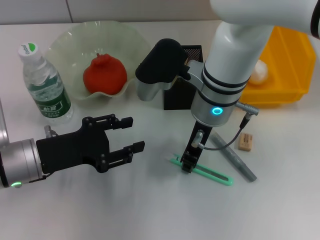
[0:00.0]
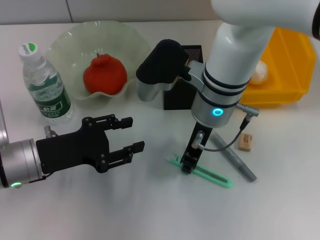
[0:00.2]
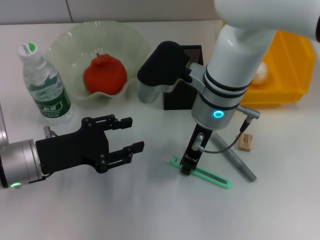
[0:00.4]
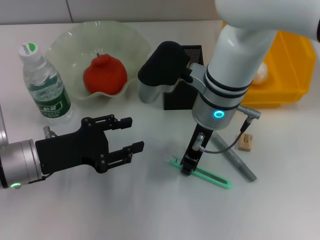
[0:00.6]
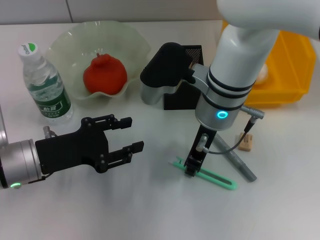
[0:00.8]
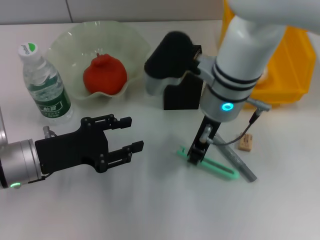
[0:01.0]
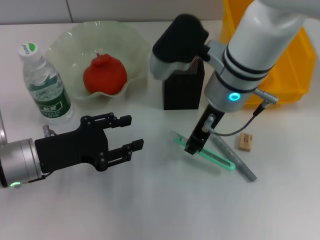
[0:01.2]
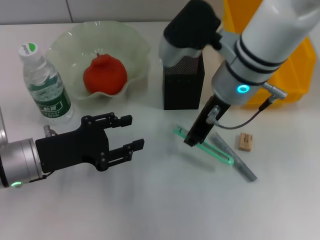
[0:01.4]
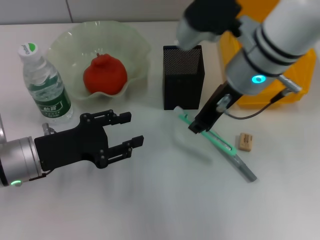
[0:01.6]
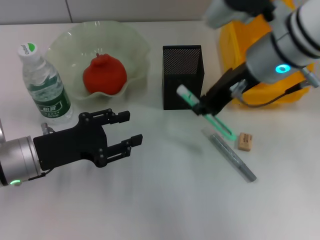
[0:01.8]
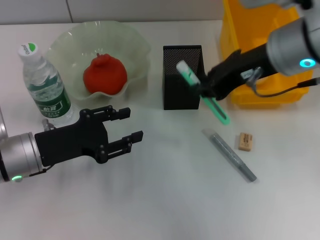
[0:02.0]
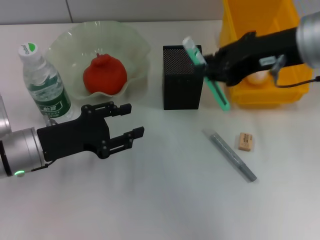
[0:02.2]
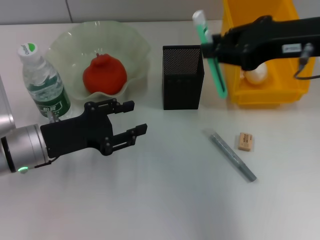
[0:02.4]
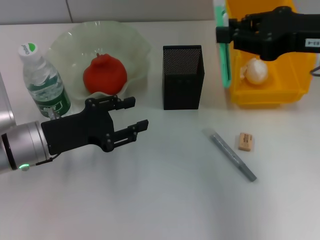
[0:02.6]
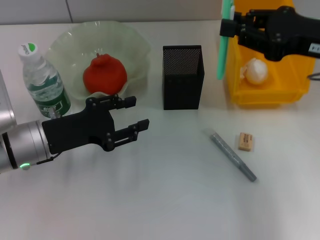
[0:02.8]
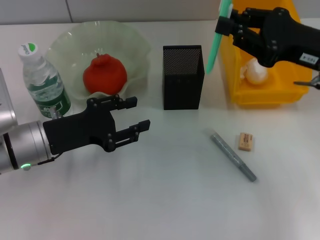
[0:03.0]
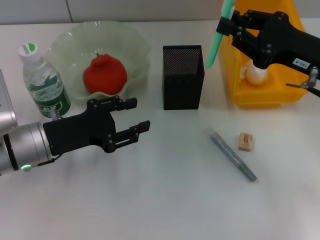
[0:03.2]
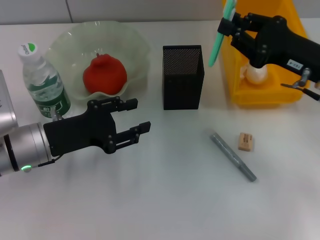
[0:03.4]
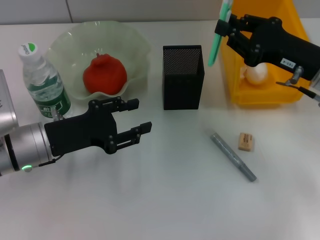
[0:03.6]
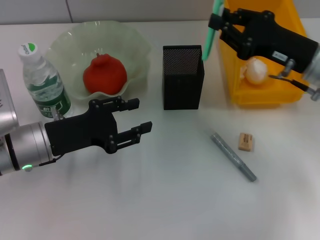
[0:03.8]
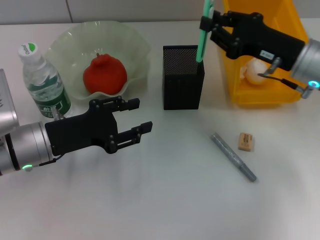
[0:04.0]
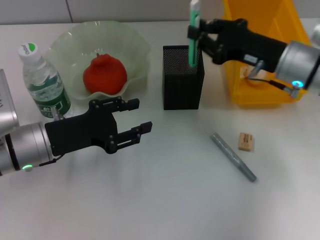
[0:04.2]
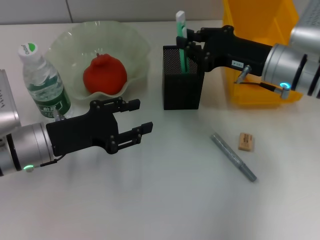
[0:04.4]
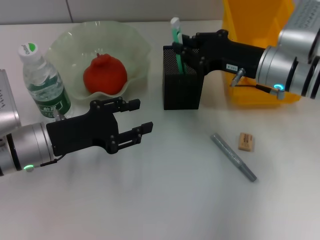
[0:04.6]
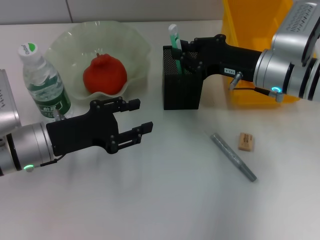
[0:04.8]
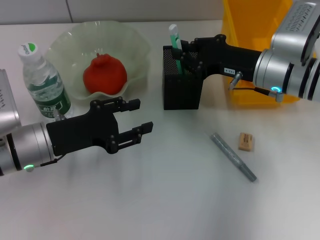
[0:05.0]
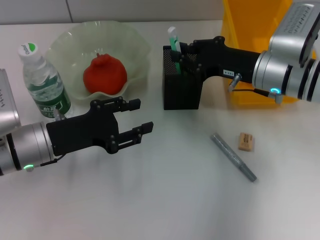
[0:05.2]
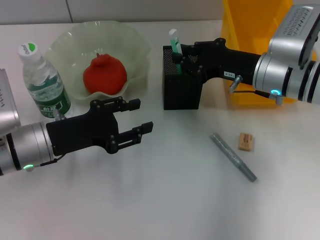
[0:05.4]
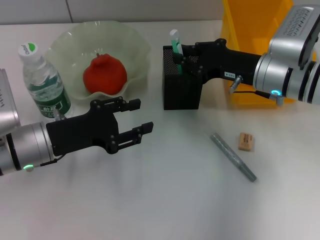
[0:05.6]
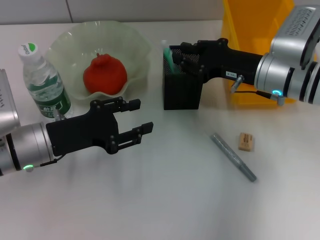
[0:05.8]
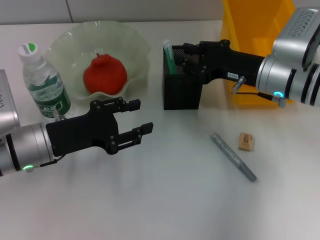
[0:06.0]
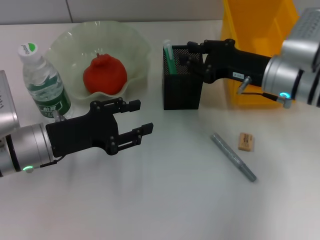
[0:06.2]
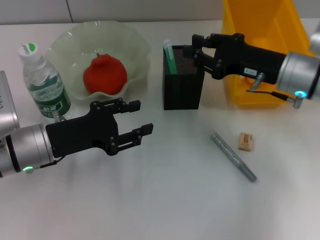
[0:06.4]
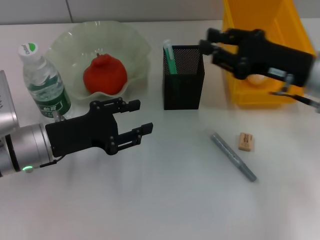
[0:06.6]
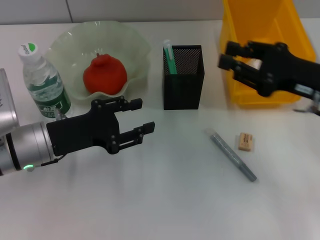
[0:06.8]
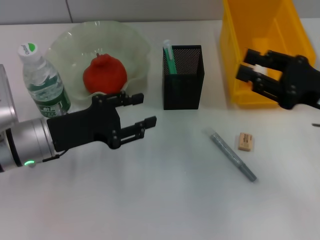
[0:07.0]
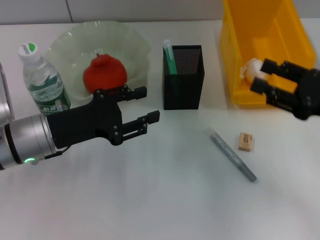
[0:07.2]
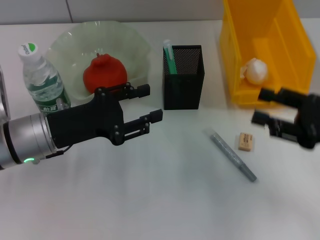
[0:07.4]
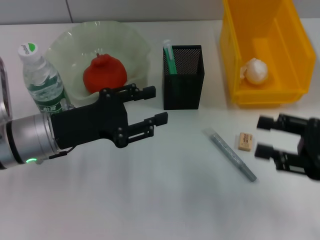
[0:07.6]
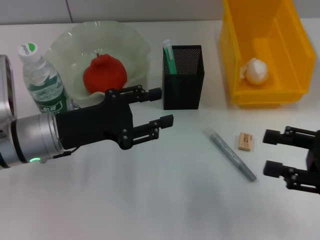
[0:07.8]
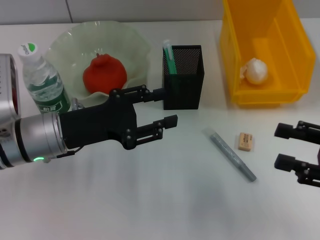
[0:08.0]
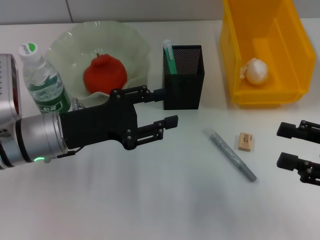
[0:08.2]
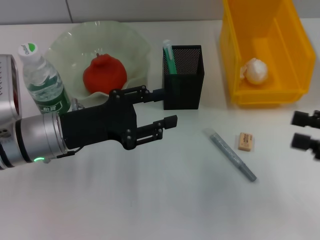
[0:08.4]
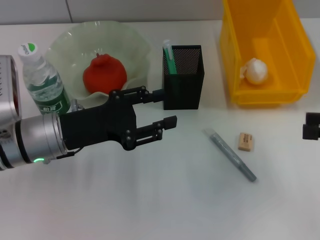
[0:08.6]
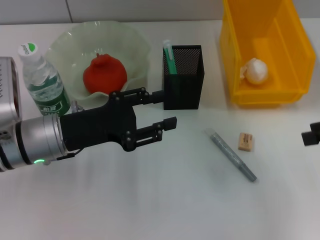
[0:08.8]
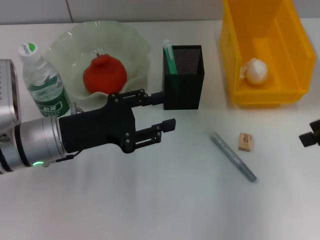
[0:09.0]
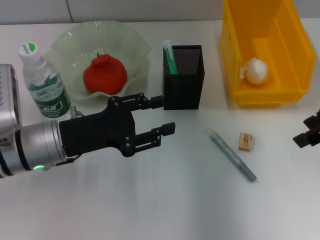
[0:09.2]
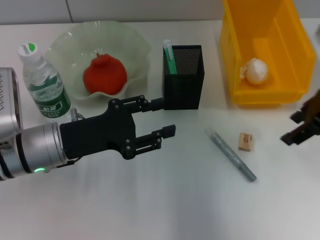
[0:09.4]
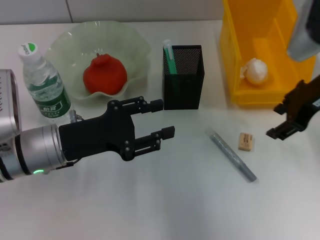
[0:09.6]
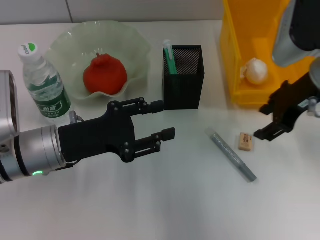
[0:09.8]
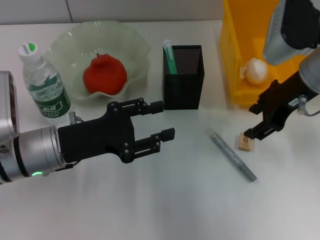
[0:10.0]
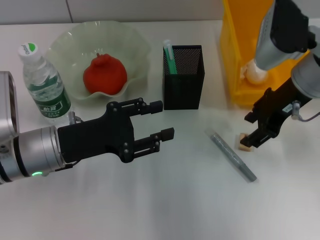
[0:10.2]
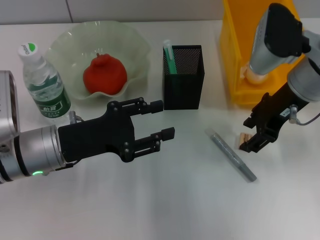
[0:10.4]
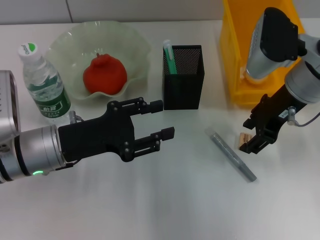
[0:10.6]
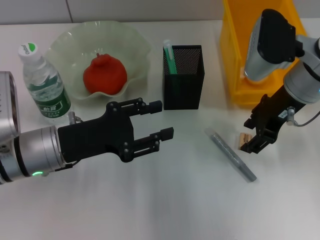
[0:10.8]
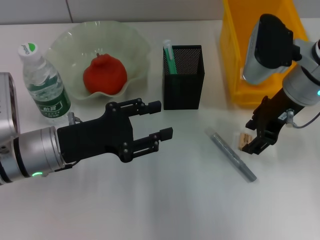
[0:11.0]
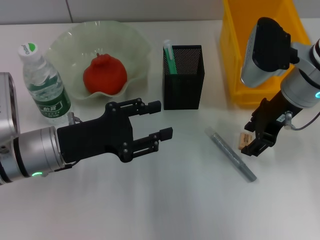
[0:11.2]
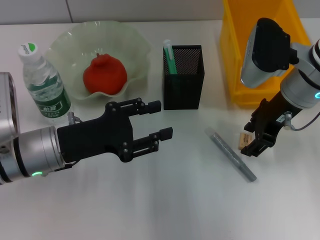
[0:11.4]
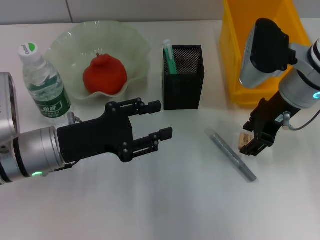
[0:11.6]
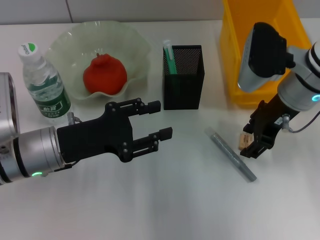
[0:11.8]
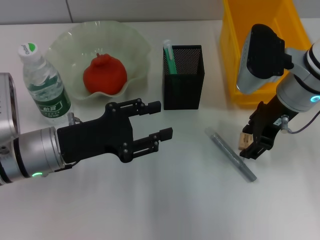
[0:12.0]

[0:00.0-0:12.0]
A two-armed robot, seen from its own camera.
Step, 0:00.8 to 0:05.8: Place the blue utility knife into the pen holder with the right hand.
0:00.0 to 0:01.6: The right gripper is displaced upward and to the right by roughly 5 cm.
0:01.6 to 0:03.0: The right gripper goes roughly 15 cm to the right.
0:03.0 to 0:04.4: The right gripper heads downward, forward and to the left, covering about 10 cm.
0:04.4 to 0:06.0: The grippers make only small movements.
0:06.0 to 0:07.6: The right gripper moves backward and to the right, approximately 20 cm, and opens.
0:07.6 to 0:09.0: The right gripper is displaced upward and forward by approximately 15 cm.
0:09.0 to 0:10.4: The right gripper is displaced to the left and forward by roughly 15 cm.
0:10.4 to 0:12.0: The grippers stay close to where they were, moving slightly.

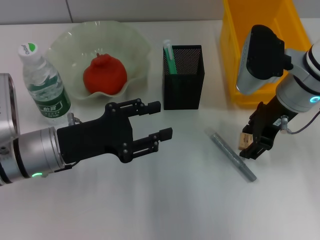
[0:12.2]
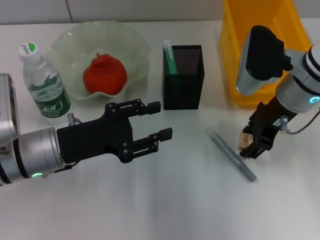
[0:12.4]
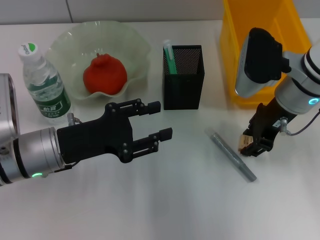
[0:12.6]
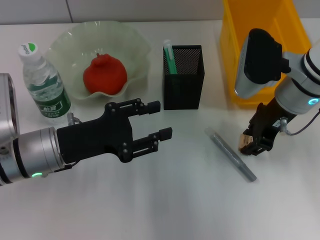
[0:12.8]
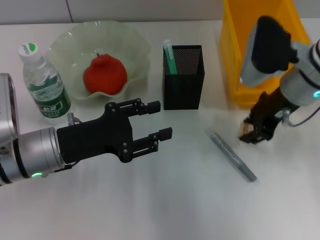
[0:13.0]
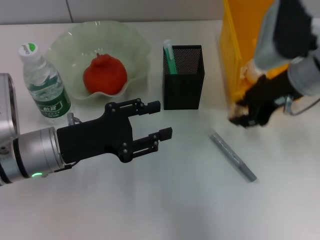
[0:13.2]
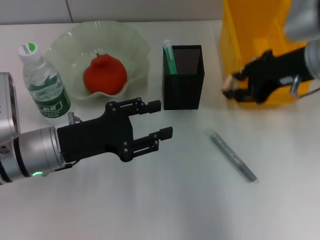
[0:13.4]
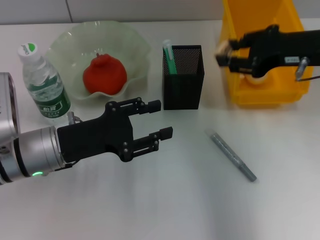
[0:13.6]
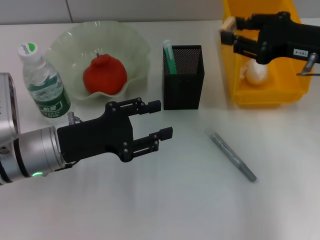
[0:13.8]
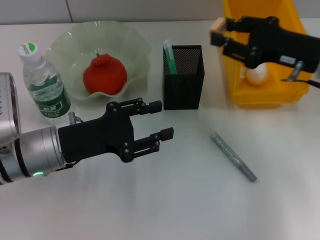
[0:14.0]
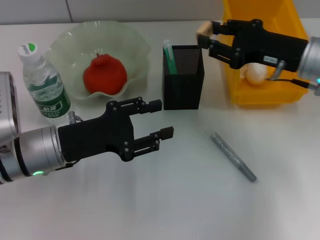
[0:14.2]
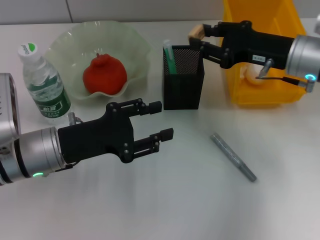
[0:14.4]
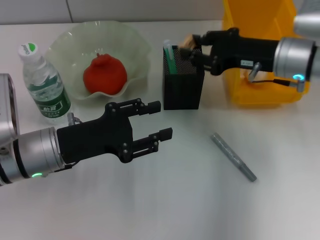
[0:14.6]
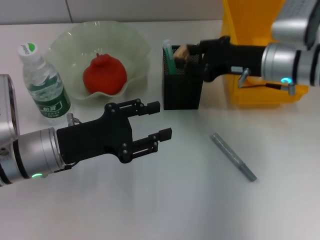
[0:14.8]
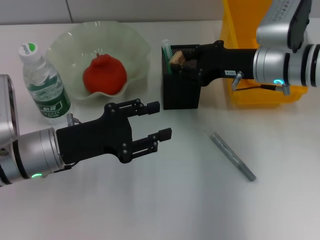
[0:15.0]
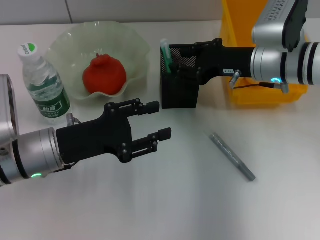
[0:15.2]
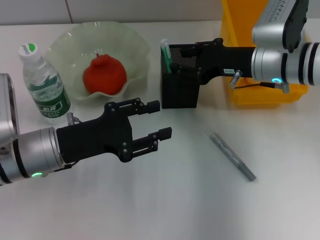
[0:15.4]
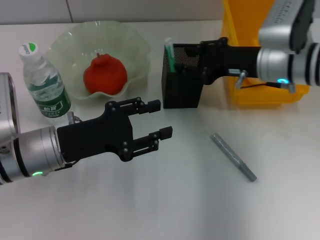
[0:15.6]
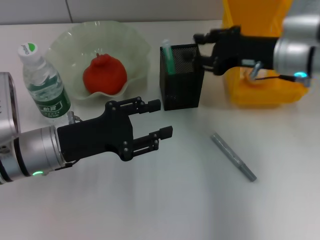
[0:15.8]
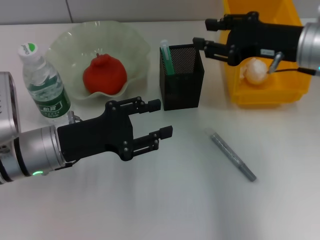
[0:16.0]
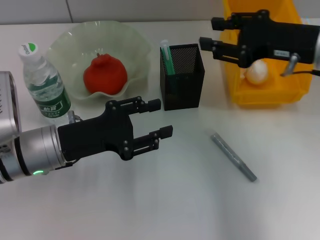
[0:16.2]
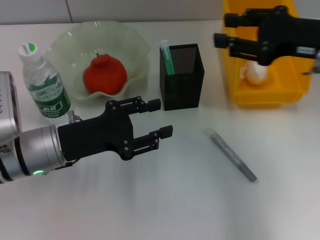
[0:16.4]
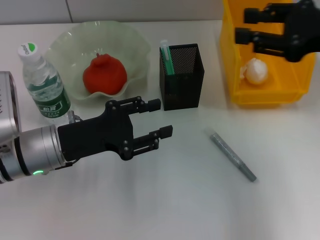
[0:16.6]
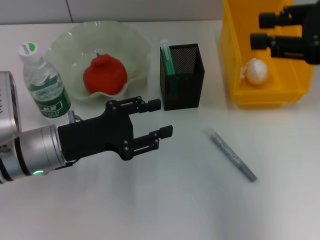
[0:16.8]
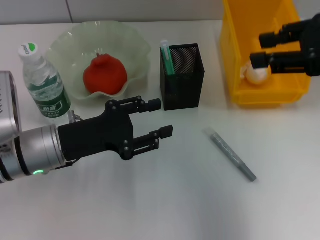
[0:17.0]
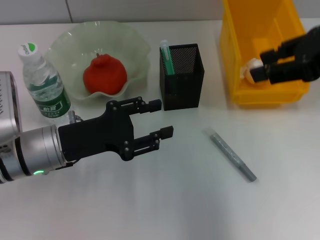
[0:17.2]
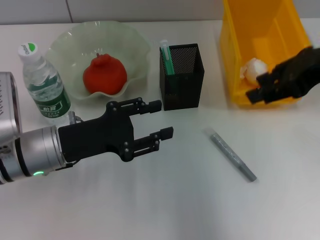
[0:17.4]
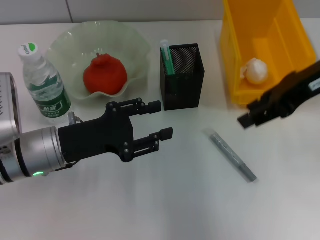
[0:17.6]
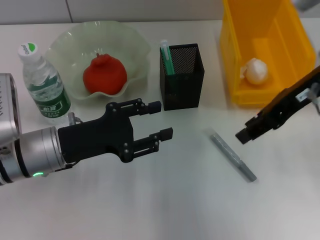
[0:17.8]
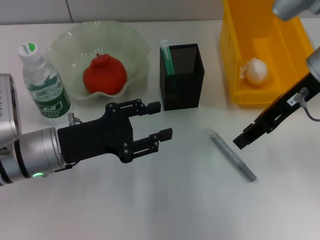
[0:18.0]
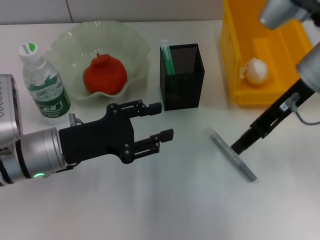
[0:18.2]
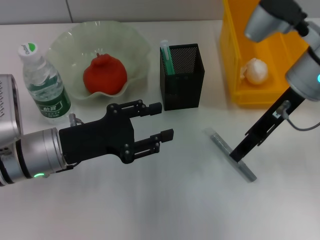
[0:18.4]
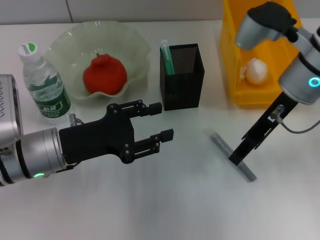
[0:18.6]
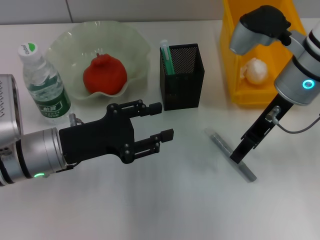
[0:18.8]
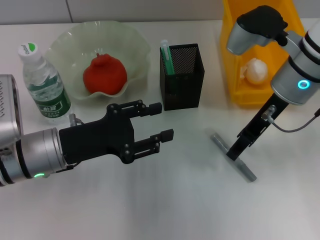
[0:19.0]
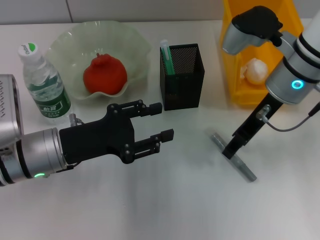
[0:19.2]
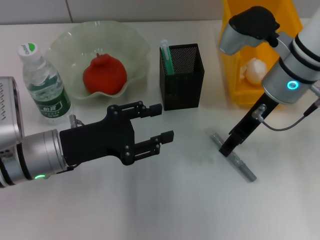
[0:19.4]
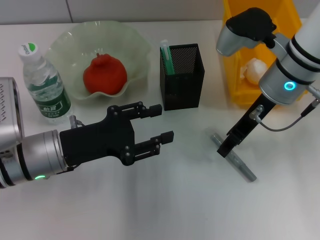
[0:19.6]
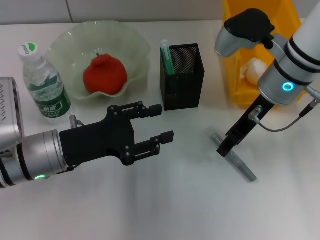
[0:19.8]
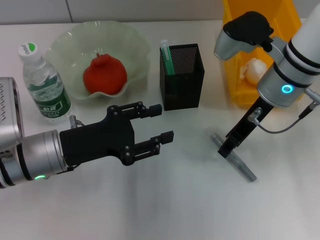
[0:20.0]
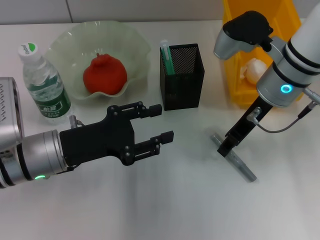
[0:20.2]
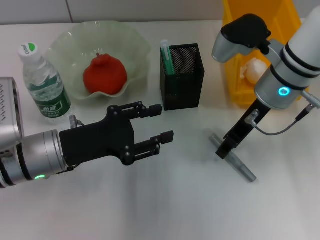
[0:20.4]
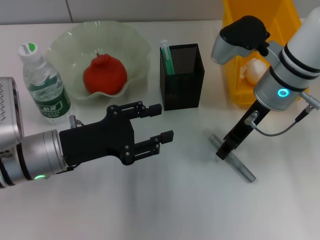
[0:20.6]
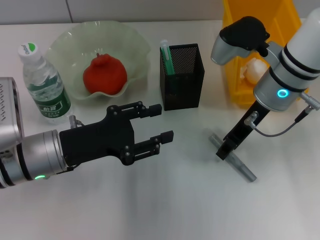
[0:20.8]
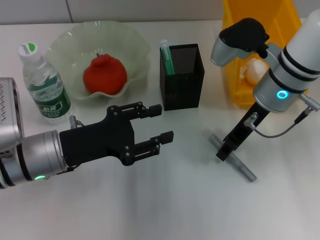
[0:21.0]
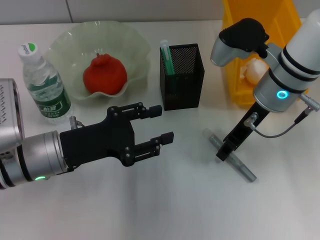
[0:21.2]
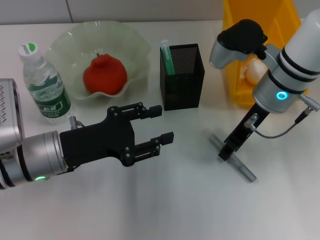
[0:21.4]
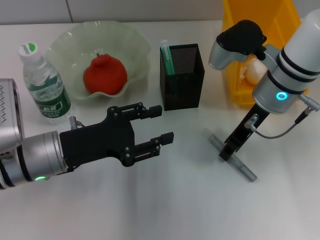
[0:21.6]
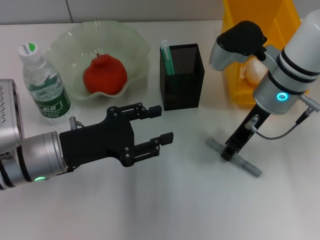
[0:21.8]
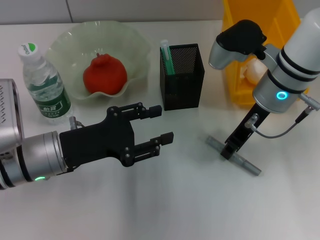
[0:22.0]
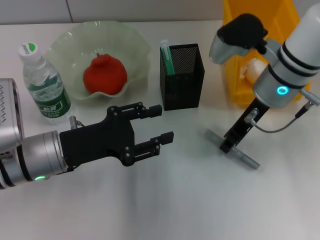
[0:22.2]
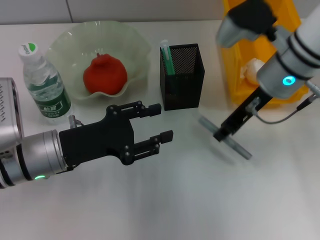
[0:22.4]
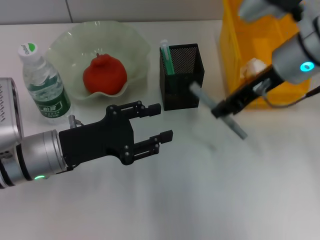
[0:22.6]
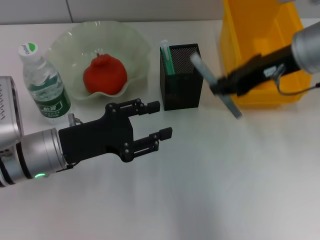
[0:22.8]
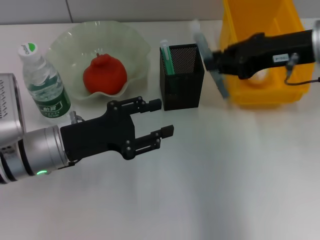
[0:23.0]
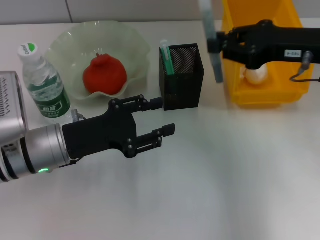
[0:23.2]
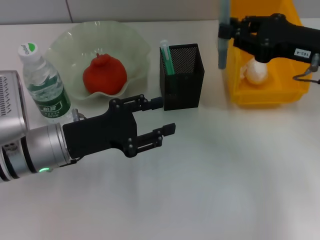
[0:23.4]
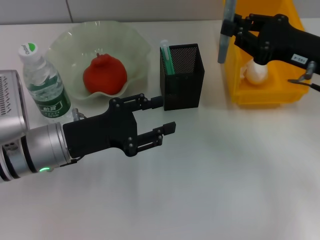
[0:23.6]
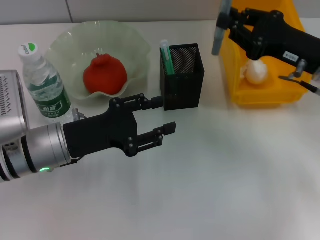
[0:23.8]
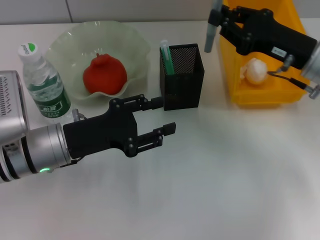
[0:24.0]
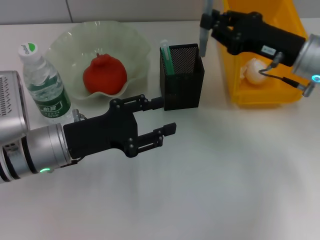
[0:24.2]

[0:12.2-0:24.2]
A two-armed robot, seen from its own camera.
Step, 0:12.8 to 0:15.4: Put the eraser into the pen holder with the right hand.
Step, 0:15.6 to 0:21.6: Grab the gray glue with the right hand.
0:12.2 to 0:13.8: The right gripper travels to the right by some 5 cm, and closes.
0:13.8 to 0:15.2: The right gripper shifts some 10 cm to the left and downward.
0:15.2 to 0:16.6: The right gripper heads upward, to the right and backward, covering approximately 15 cm.
0:16.6 to 0:18.2: The right gripper goes about 10 cm to the left and forward.
0:18.2 to 0:19.8: The right gripper changes place by some 5 cm.
0:19.8 to 0:21.2: Both grippers stay about where they are.
0:21.2 to 0:22.6: The right gripper travels upward by approximately 5 cm.
0:22.6 to 0:24.2: The right gripper heads downward and to the right, covering some 10 cm.
